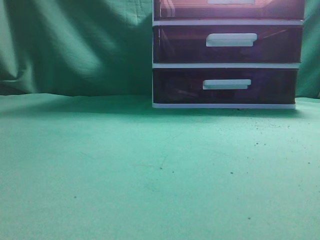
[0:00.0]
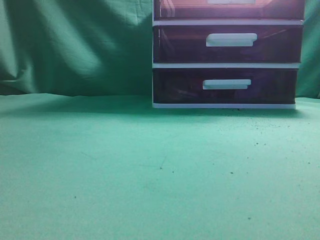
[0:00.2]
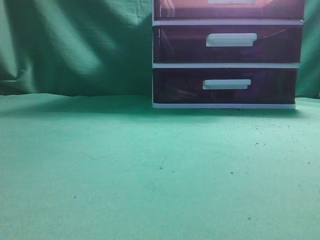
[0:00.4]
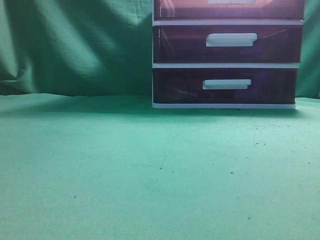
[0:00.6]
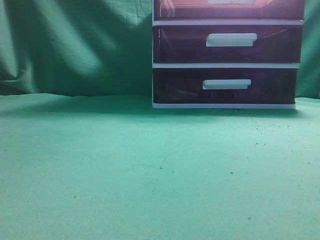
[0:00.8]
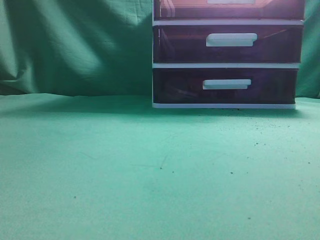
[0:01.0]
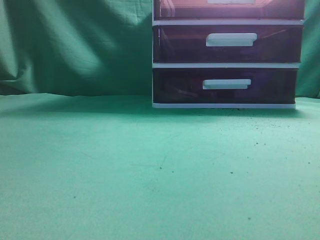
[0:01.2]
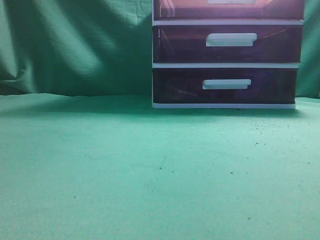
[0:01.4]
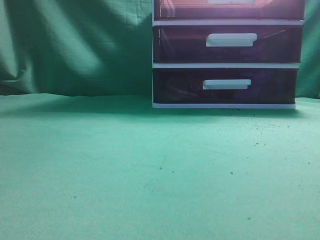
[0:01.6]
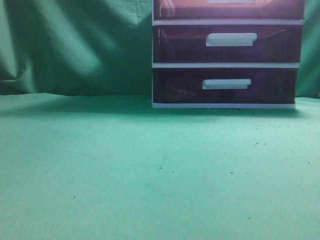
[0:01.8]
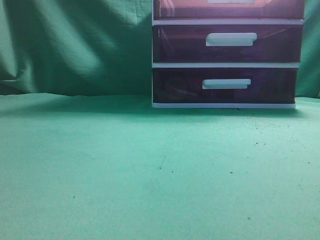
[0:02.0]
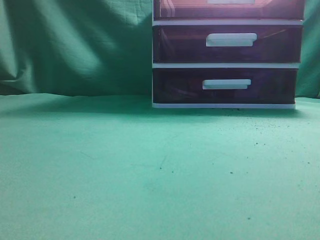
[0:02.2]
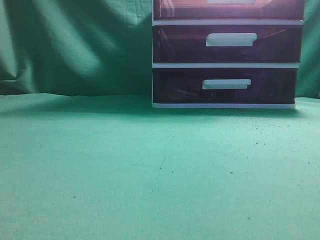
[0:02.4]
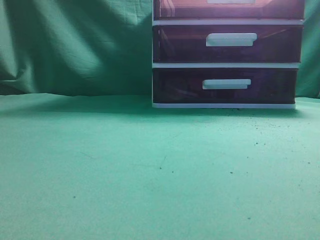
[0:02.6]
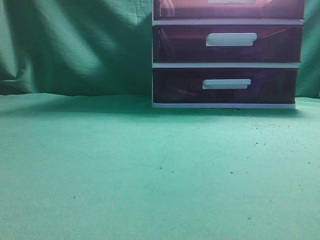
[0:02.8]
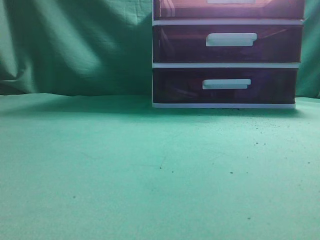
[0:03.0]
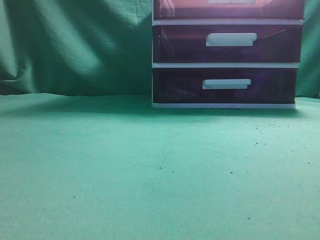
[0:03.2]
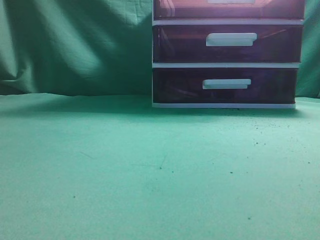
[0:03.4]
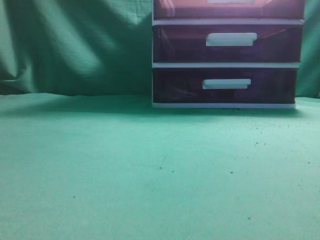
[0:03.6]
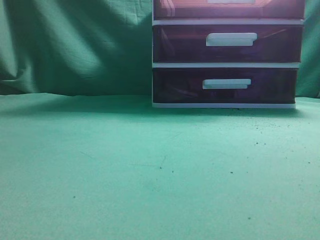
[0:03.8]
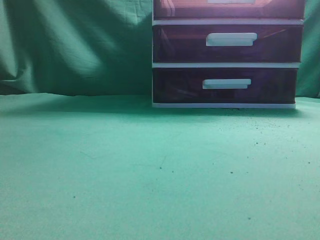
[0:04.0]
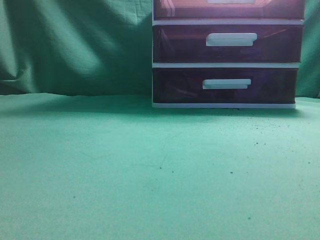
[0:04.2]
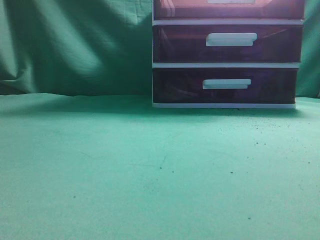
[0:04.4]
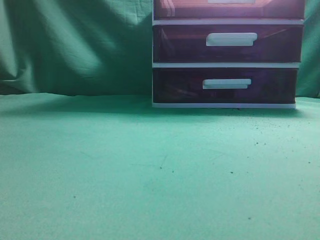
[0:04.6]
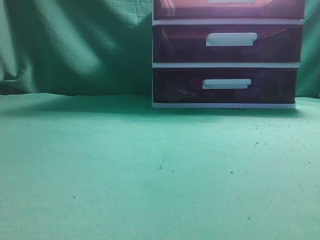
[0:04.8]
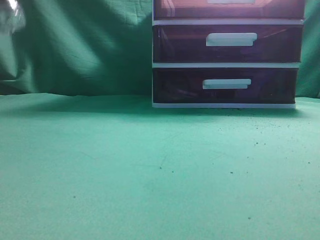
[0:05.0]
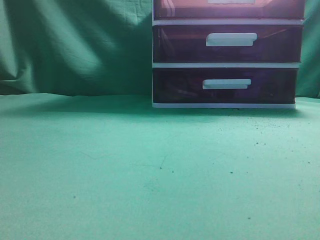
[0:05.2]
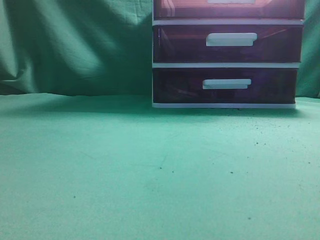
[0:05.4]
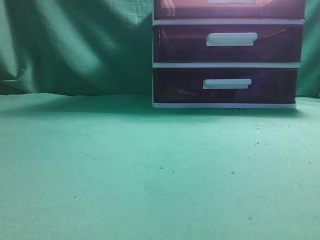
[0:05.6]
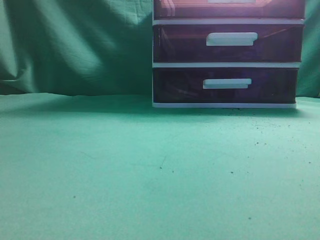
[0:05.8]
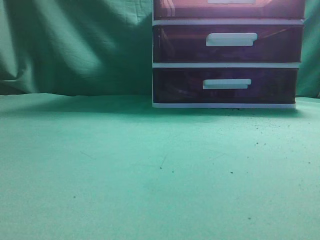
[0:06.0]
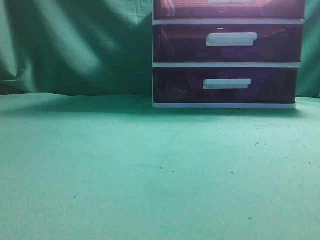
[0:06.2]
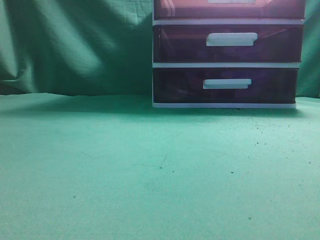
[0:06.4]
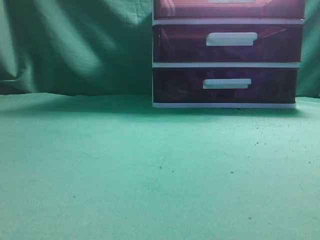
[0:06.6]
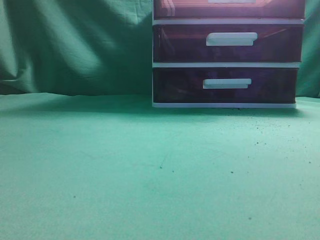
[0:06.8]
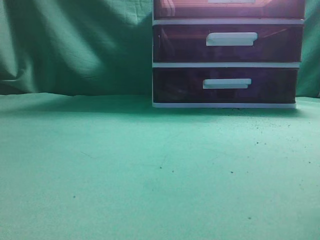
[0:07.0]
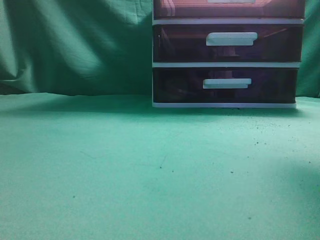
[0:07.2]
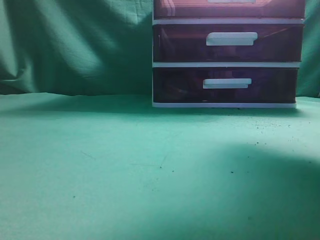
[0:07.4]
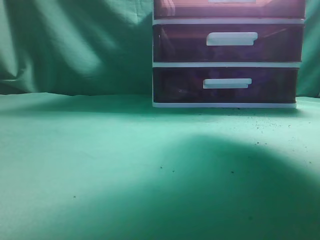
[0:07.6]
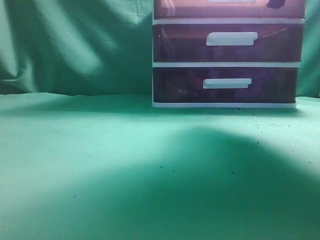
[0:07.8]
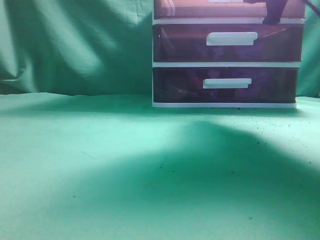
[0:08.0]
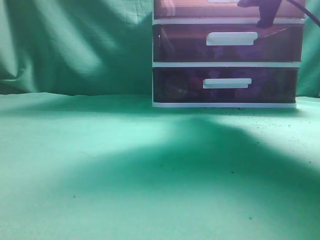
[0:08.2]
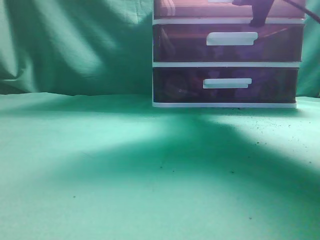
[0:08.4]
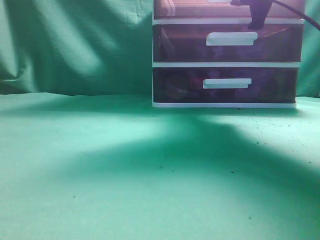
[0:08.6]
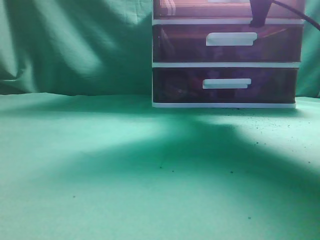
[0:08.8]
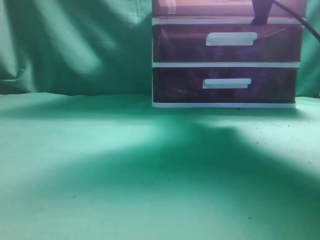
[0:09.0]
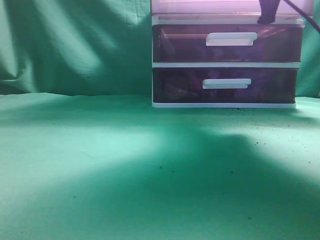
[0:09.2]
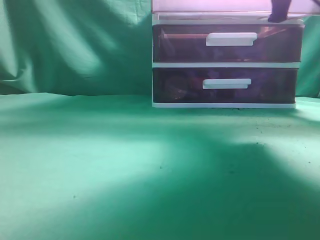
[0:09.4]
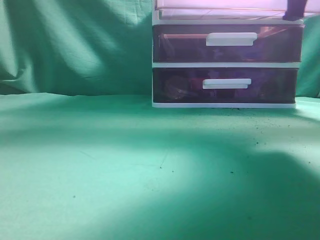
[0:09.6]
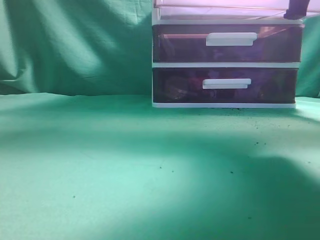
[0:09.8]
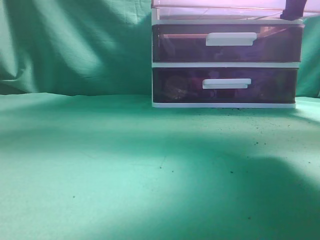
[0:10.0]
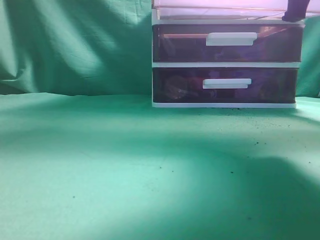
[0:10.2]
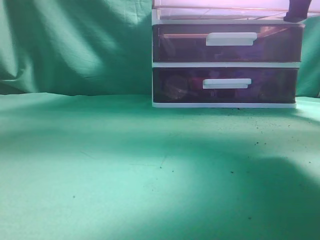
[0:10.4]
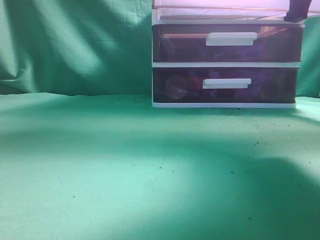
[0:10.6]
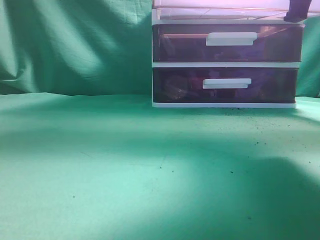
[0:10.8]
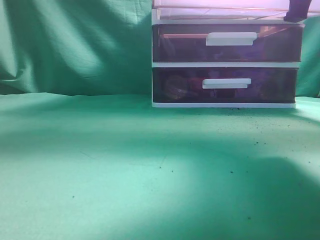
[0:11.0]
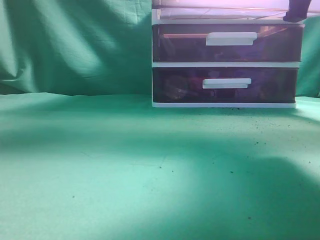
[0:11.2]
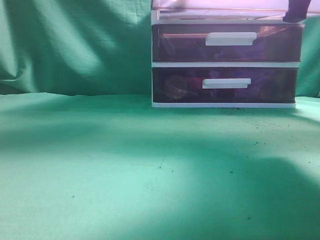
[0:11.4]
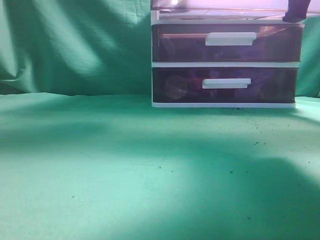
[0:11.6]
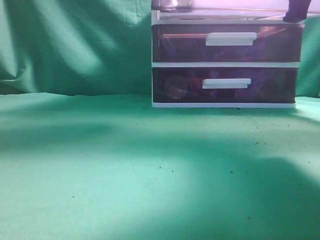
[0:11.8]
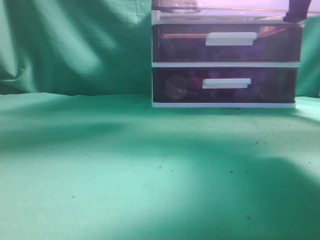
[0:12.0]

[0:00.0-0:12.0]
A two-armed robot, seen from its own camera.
Task of the whole recording: place the water bottle into the drawer.
Step, 0:00.0 to 0:10.2: Open the drawer.
0:06.0 to 0:07.6: The right gripper moves forward, approximately 30 cm, and opens up.
0:07.6 to 0:09.0: The right gripper shifts some 5 cm forward, and closes.
0:09.0 to 0:10.4: The left gripper changes place by about 5 cm; the right gripper travels backward by some 10 cm.
0:10.4 to 0:12.0: The left gripper shifts roughly 20 cm forward, to the right and downward, and opens up.

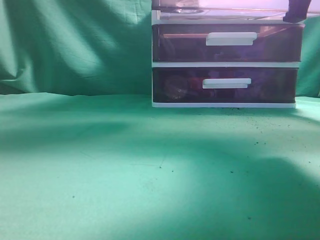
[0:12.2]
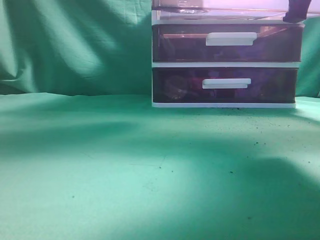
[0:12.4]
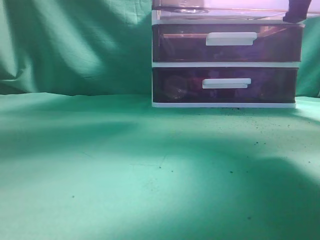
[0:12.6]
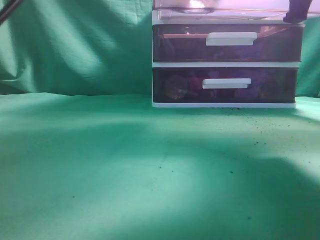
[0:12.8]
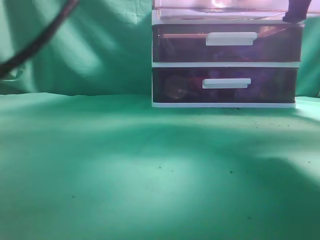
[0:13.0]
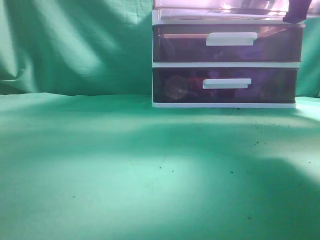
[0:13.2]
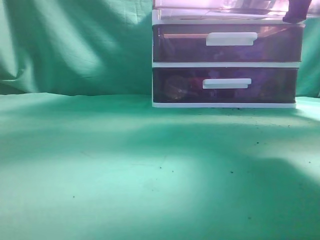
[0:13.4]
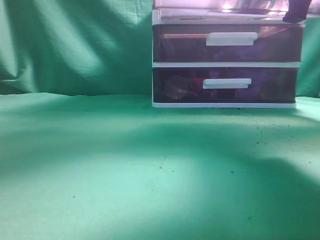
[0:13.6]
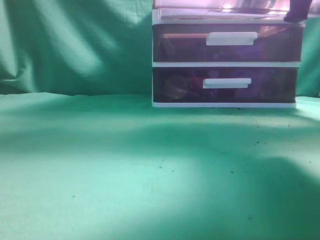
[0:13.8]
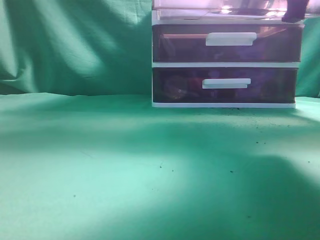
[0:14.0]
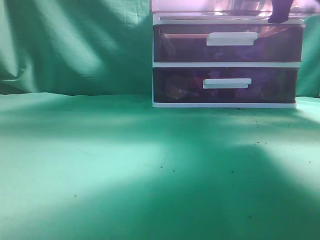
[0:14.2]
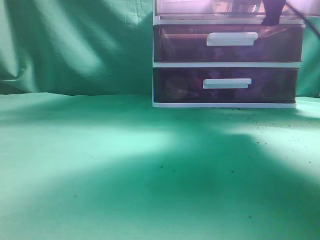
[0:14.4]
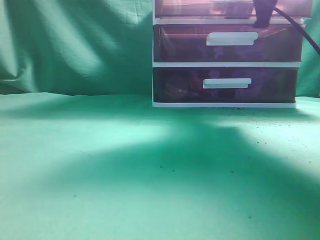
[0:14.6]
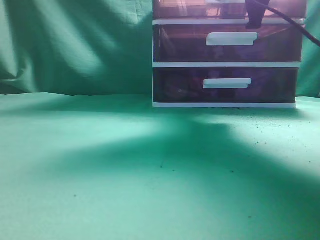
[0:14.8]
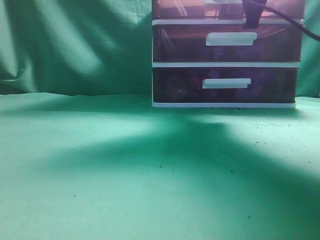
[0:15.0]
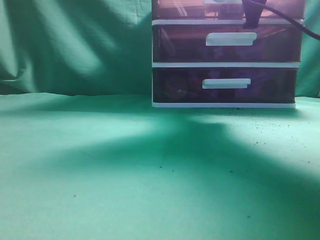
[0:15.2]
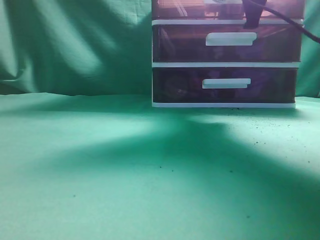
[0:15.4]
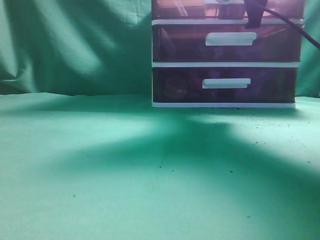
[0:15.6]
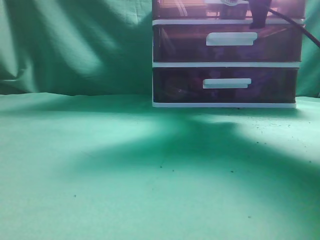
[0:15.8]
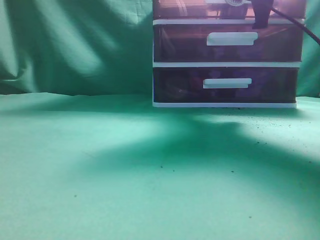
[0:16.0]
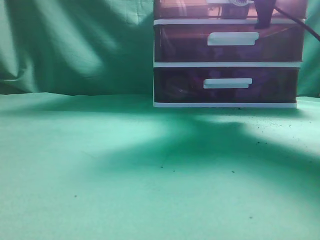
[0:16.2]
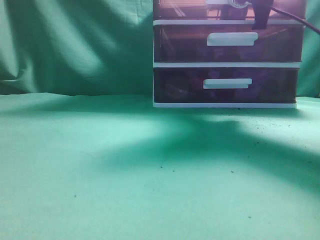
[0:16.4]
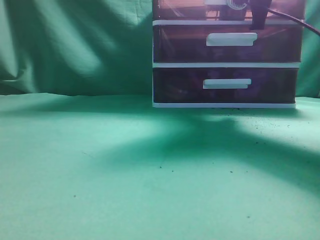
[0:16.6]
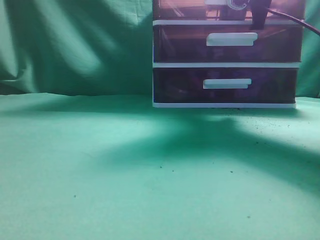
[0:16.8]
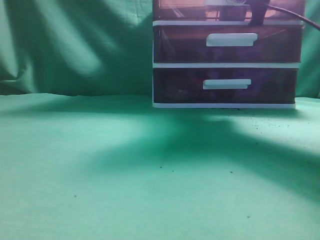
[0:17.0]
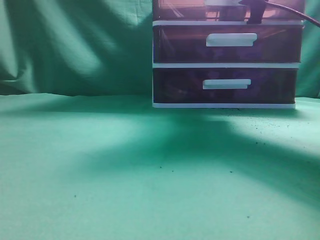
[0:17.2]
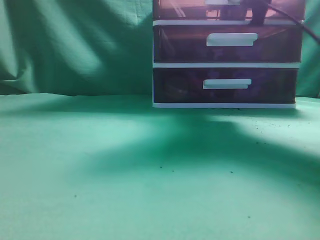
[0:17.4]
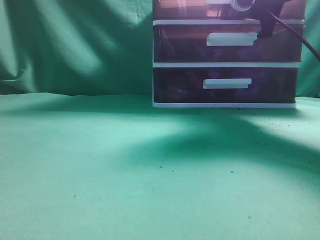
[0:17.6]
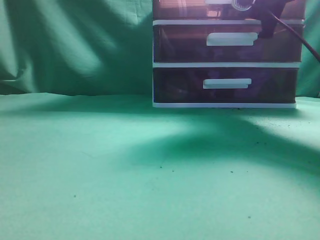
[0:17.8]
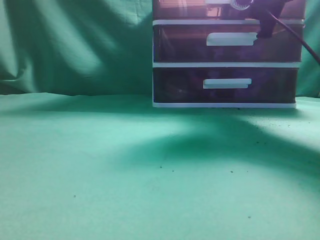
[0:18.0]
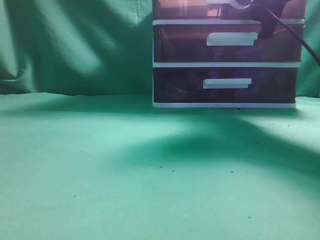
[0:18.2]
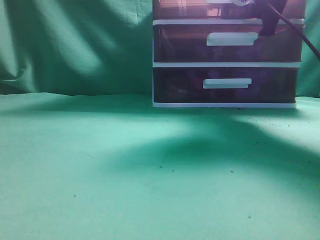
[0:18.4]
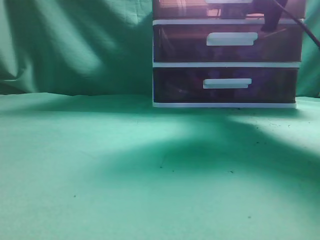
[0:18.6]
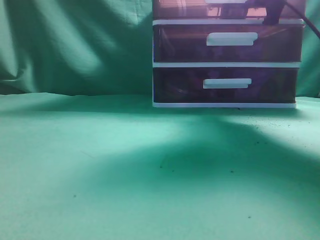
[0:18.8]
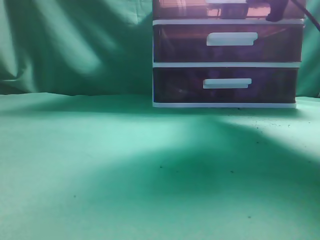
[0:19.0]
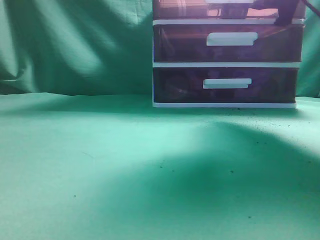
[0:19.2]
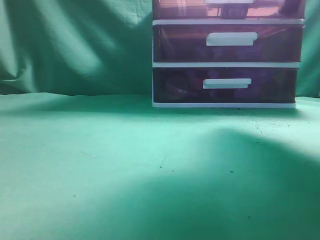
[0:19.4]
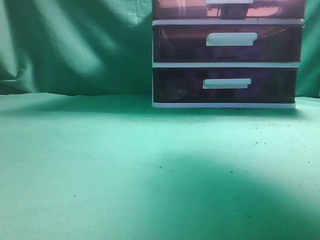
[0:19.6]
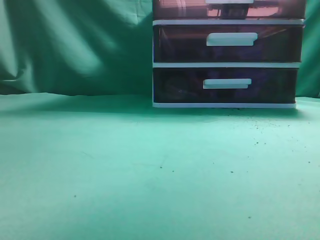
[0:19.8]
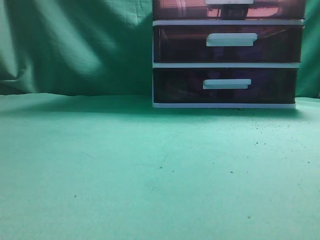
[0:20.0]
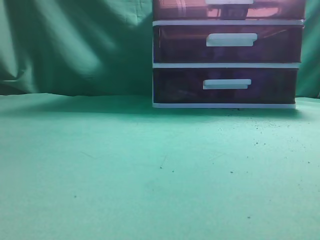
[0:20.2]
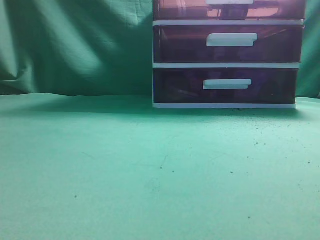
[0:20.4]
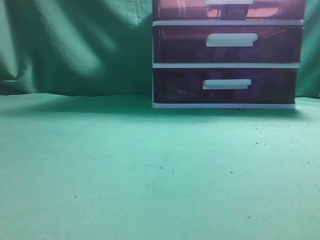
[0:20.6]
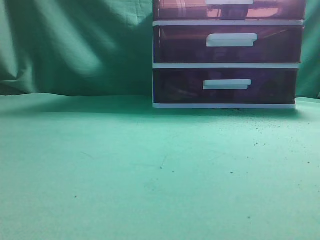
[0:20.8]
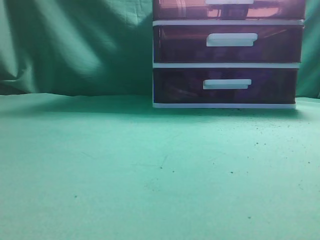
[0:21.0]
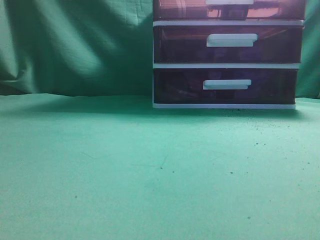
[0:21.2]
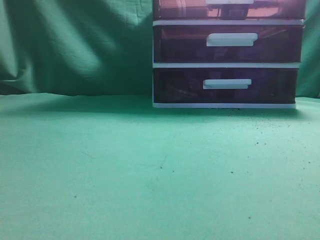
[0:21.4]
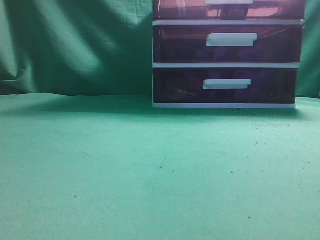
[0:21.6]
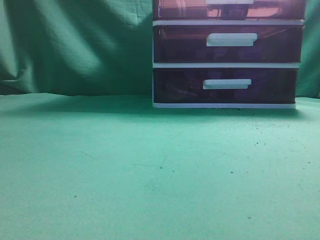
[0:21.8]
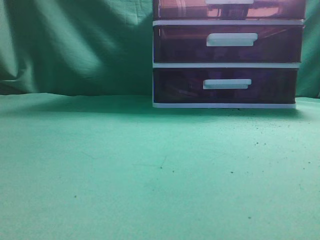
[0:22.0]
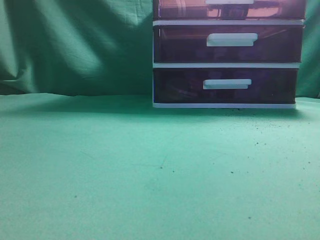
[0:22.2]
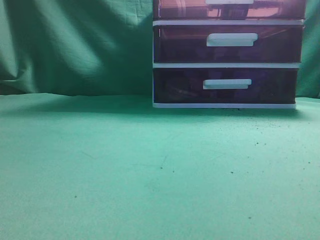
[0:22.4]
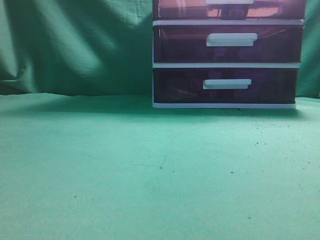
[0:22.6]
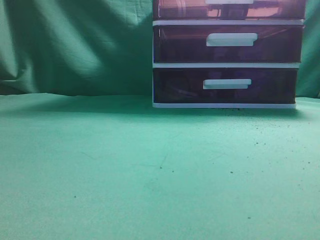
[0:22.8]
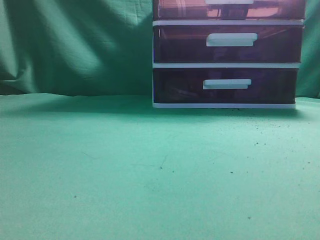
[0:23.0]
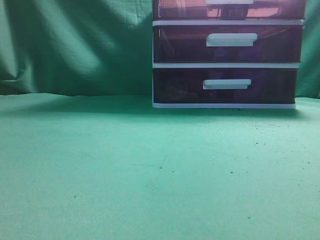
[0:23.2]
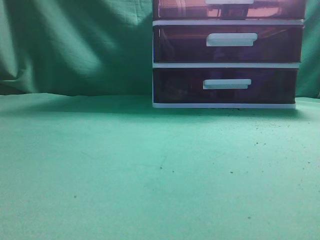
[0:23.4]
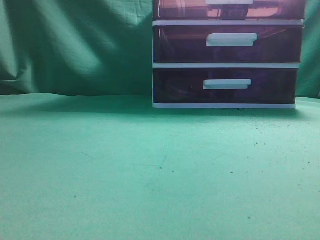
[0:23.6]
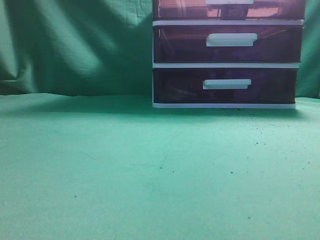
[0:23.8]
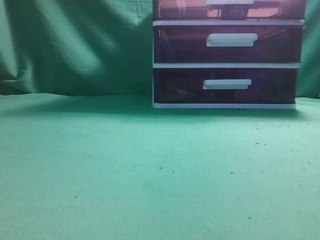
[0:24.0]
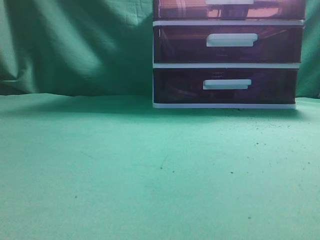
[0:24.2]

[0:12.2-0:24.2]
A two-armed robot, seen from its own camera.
Task of the whole recording: place the water bottle into the drawer.
Step, 0:13.8 to 0:18.4: Close the drawer.
0:12.2 to 0:13.8: The left gripper shifts approximately 5 cm to the right, and closes its fingers.
0:13.8 to 0:15.2: The left gripper heads upward, to the left and backward, covering approximately 15 cm. The right gripper travels forward by roughly 15 cm.
0:16.6 to 0:18.2: The right gripper opens.
0:18.2 to 0:19.8: The left gripper shifts roughly 10 cm upward and backward. Meanwhile the right gripper is displaced backward and upward by approximately 15 cm, and closes up.
0:19.8 to 0:21.2: The right gripper moves backward and upward, approximately 15 cm, while the left gripper heads backward, downward and to the left, covering approximately 35 cm.
